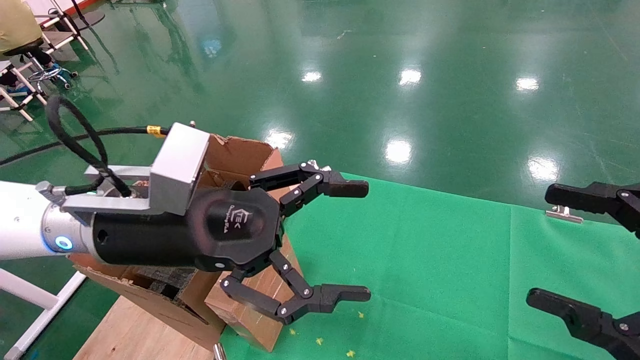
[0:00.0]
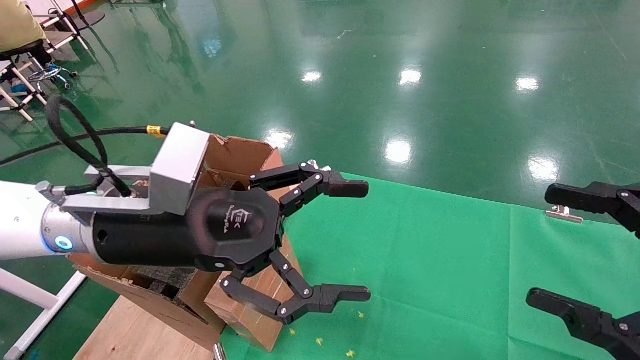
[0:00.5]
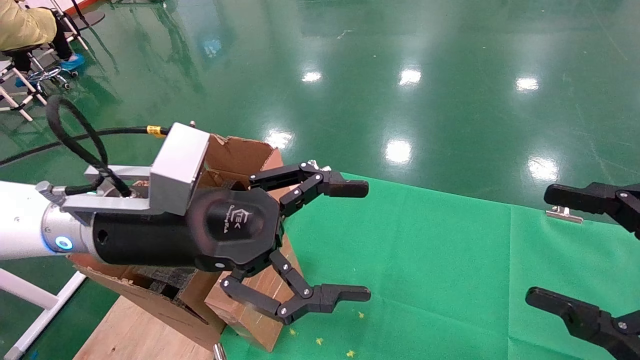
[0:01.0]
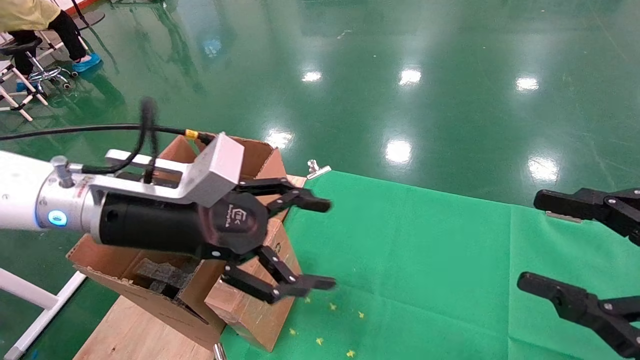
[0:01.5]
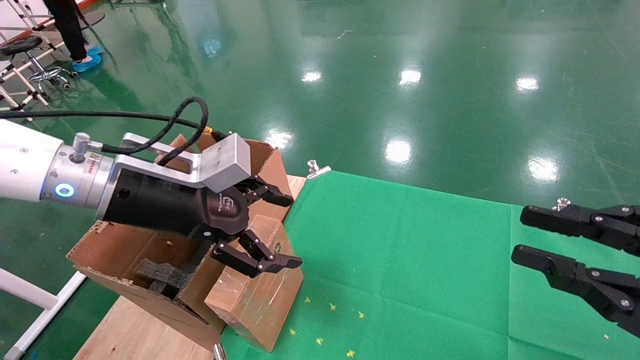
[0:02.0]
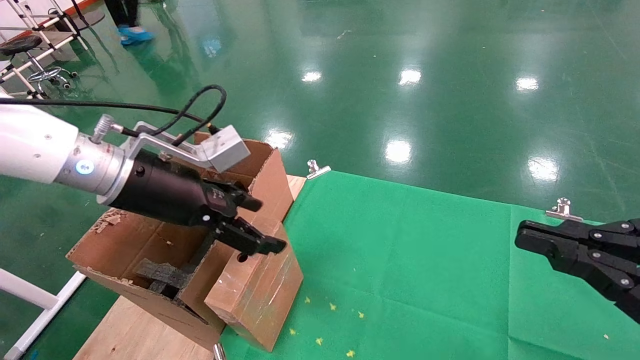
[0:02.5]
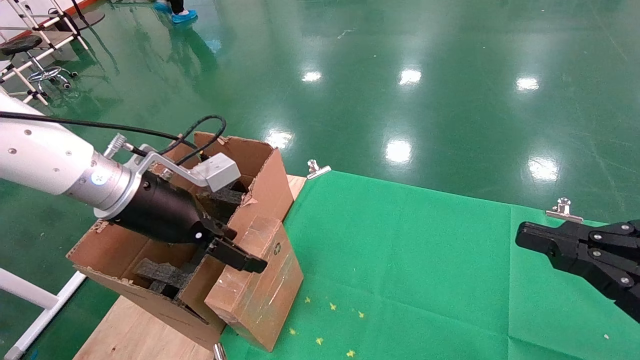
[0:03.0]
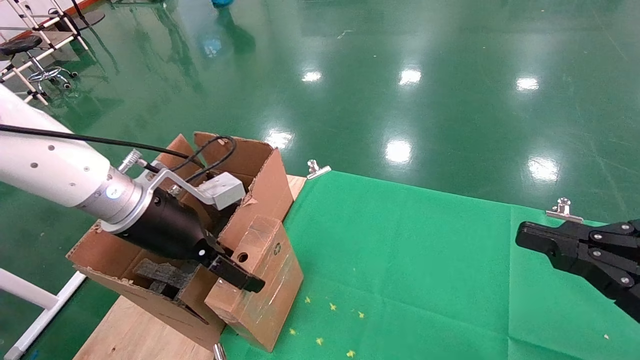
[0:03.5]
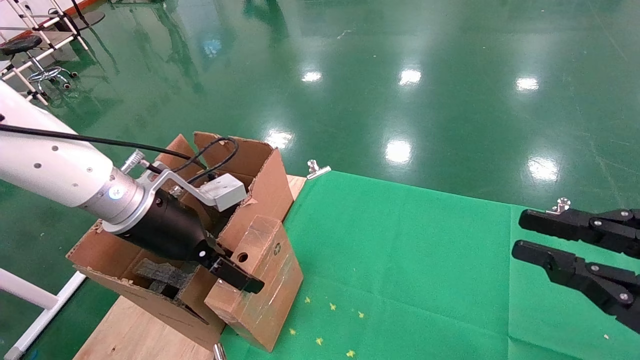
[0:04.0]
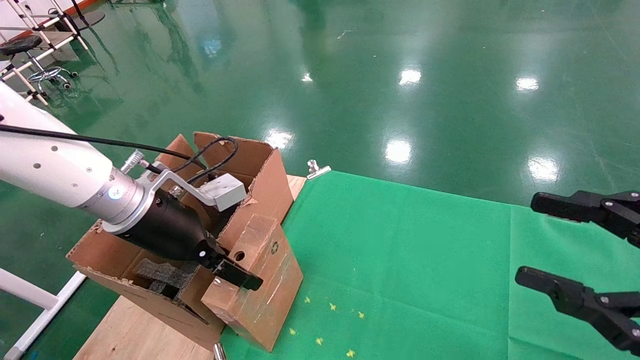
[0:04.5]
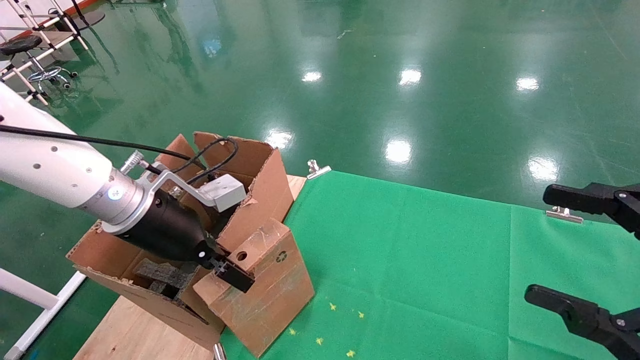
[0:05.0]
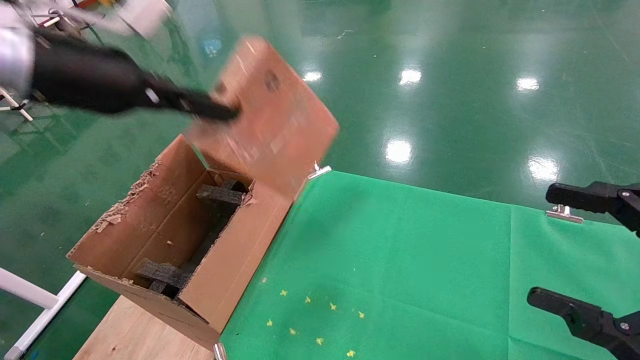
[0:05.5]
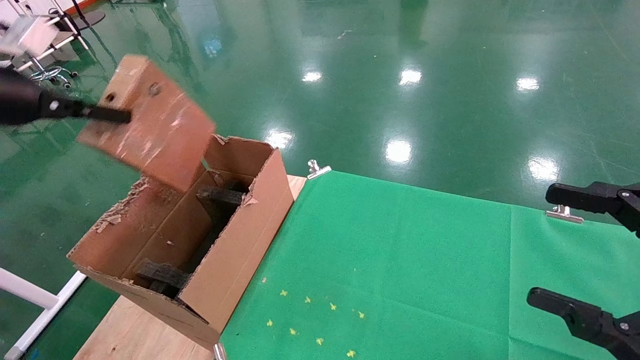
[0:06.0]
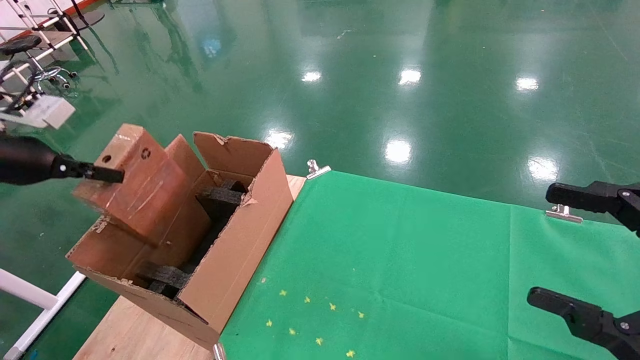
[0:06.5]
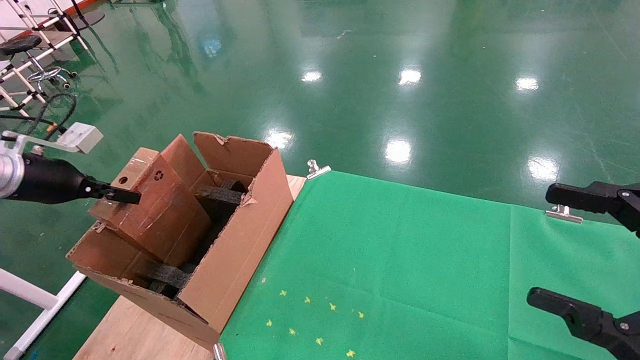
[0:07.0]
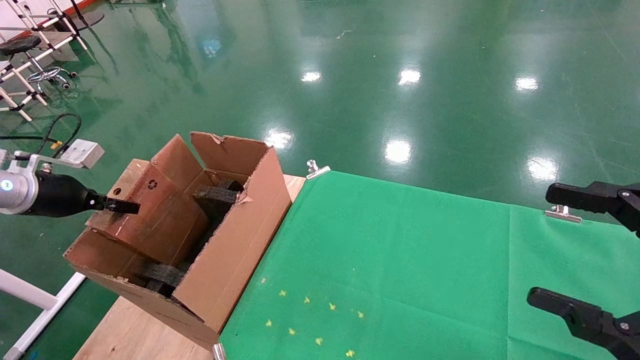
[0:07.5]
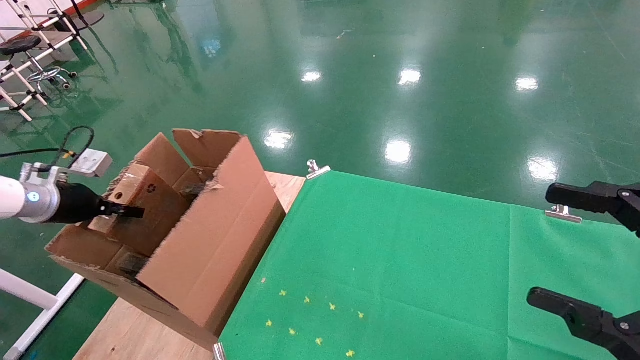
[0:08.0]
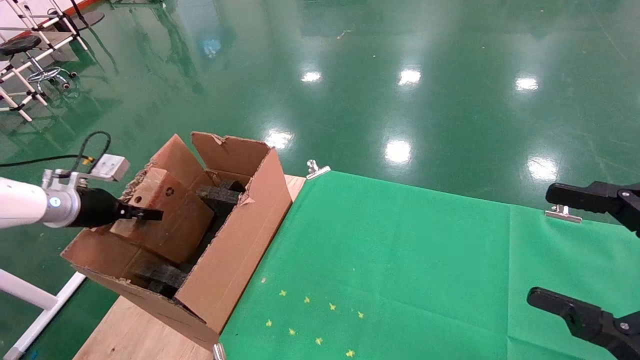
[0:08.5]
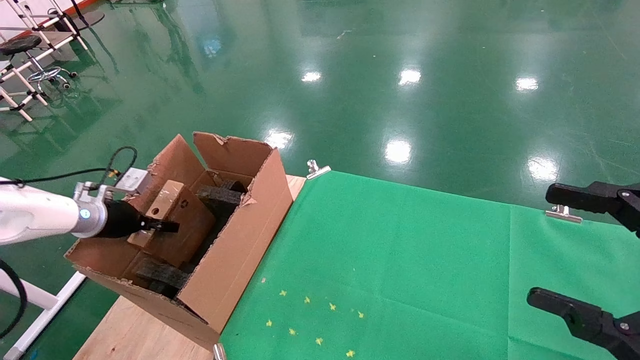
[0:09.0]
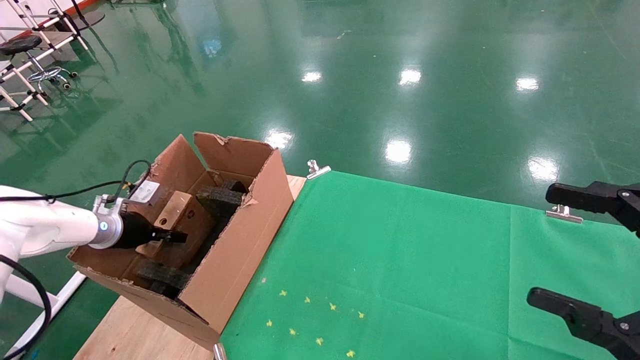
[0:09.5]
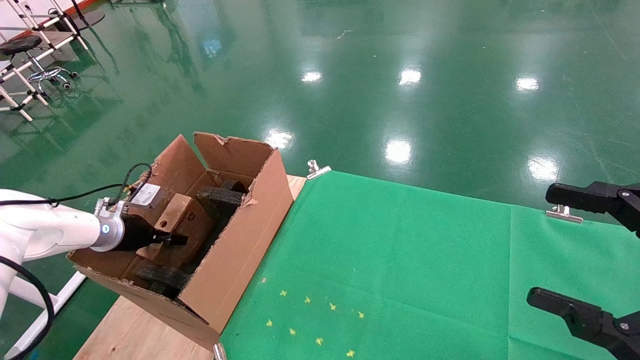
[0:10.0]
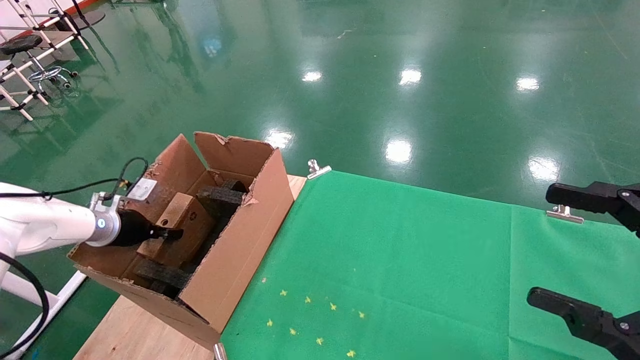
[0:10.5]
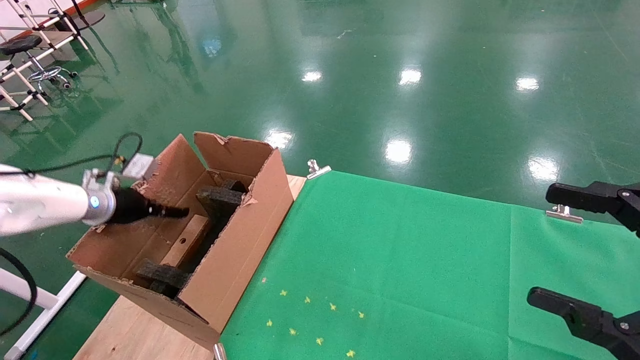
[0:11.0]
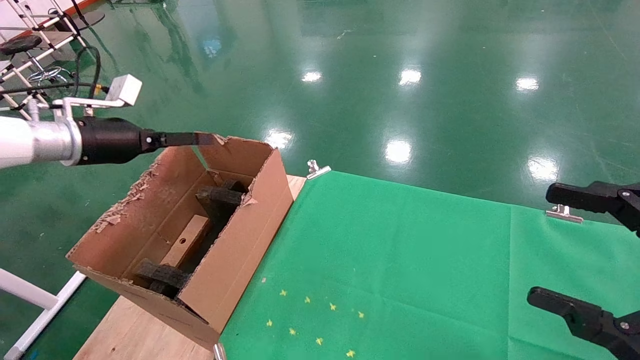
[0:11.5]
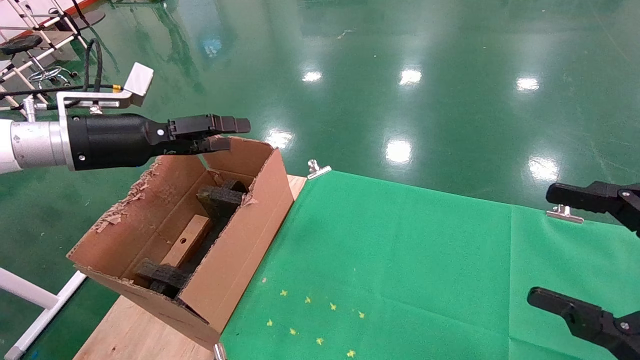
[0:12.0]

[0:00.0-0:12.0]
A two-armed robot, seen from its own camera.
Task of the whole recording: using a robotic arm to pick up a cardboard box and palace it the carton.
Step, 0:01.5 to 0:04.5: Pick up the mouse and the power cord paper box.
Step, 0:05.0 to 0:11.0: Place the mouse and the power cord paper box into the container.
0:00.0 to 0:02.0: The left gripper ends up about 5 cm from where it was, while the right gripper closes up.
0:04.0 to 0:06.0: The left gripper heads to the left and upward, covering approximately 25 cm, and closes up. The right gripper opens.
0:06.0 to 0:08.0: The left gripper is displaced downward and forward by some 20 cm.
0:08.0 to 0:10.0: The left gripper travels downward, to the right and forward by roughly 10 cm.
0:10.0 to 0:12.0: The left gripper moves upward and to the right, approximately 20 cm, and opens its fingers.

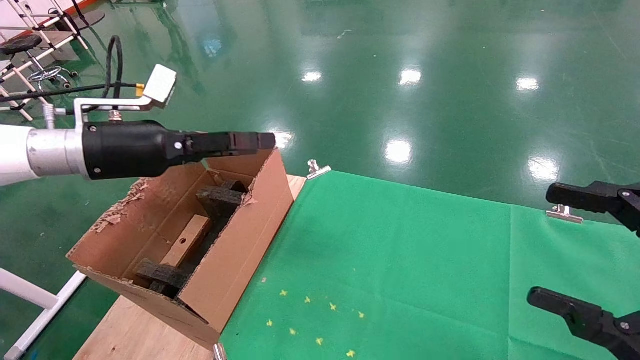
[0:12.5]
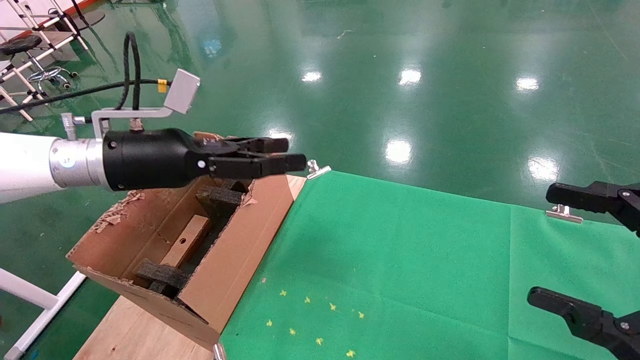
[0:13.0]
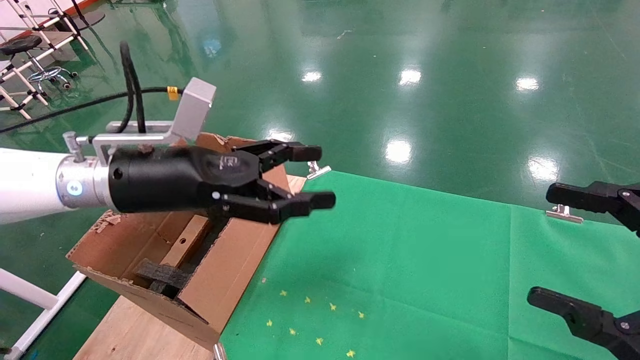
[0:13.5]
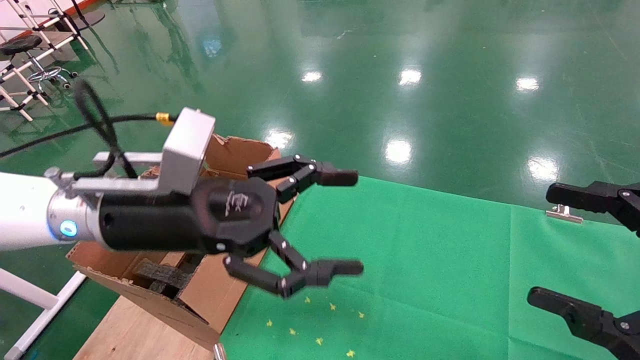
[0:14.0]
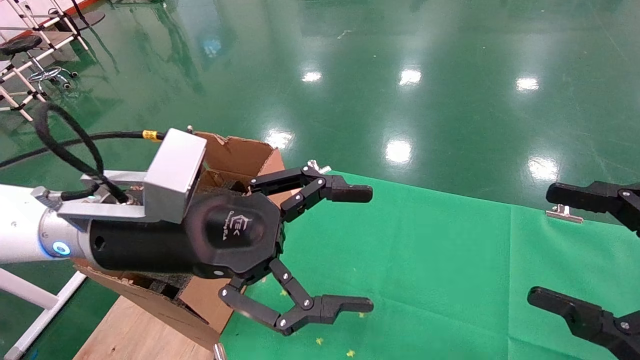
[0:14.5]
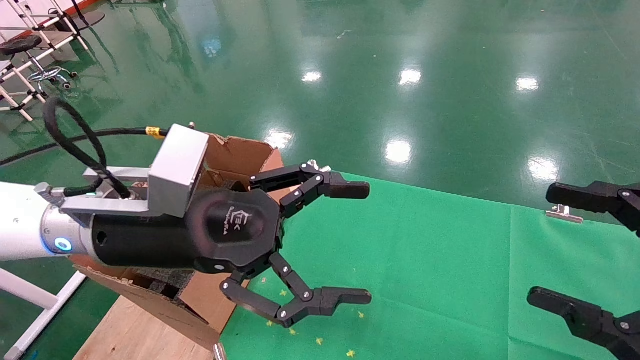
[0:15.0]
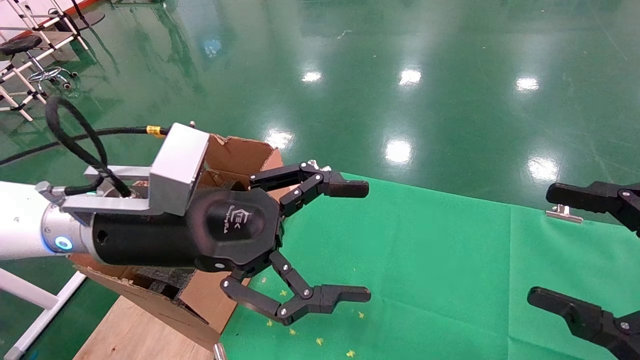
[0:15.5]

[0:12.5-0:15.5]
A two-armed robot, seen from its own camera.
Task of the whole recording: using a robotic arm to pick up a cardboard box and palace it the carton.
0:12.5 to 0:14.0: The left gripper travels to the right and backward by approximately 15 cm.
0:14.0 to 0:15.5: The grippers make only small movements.
